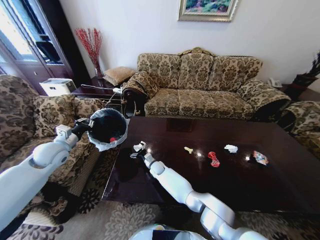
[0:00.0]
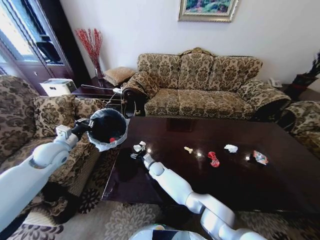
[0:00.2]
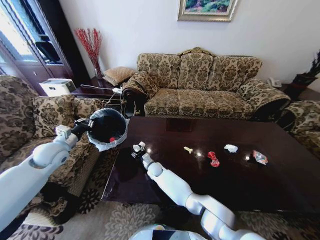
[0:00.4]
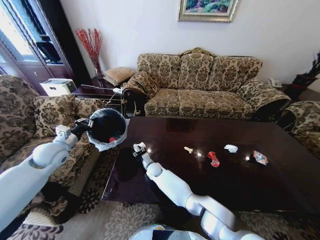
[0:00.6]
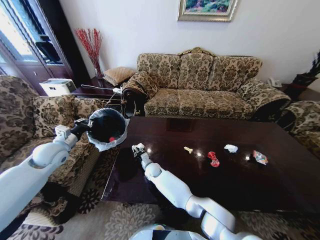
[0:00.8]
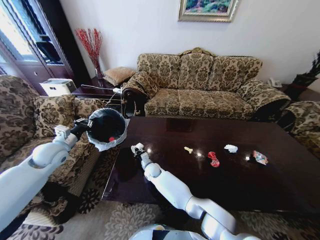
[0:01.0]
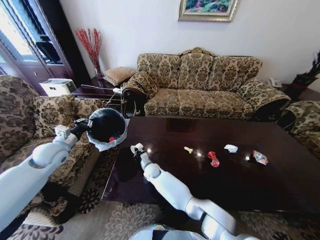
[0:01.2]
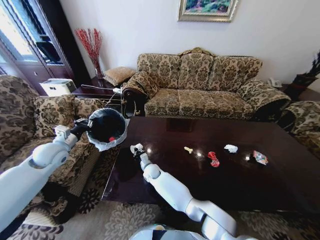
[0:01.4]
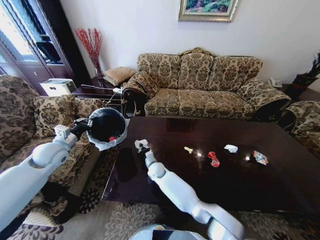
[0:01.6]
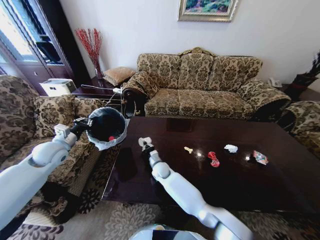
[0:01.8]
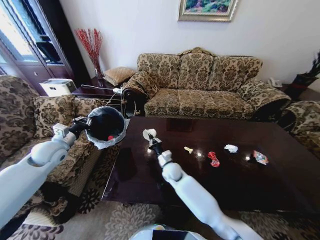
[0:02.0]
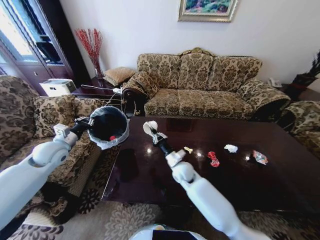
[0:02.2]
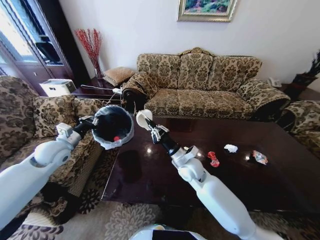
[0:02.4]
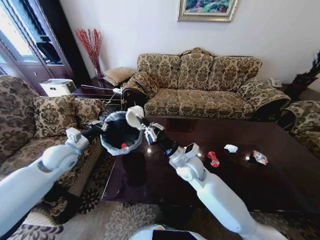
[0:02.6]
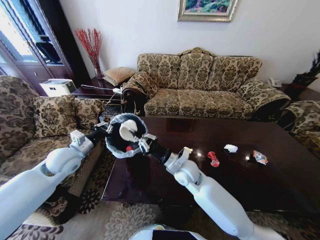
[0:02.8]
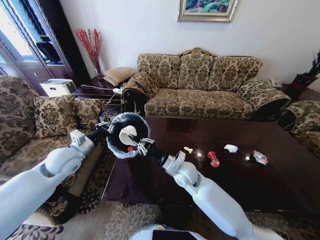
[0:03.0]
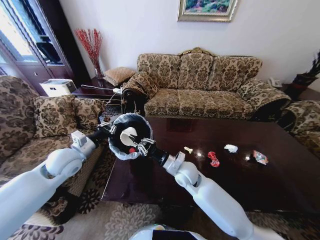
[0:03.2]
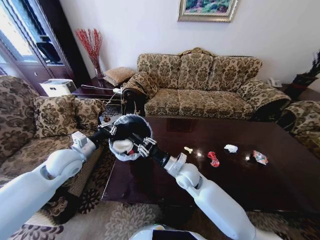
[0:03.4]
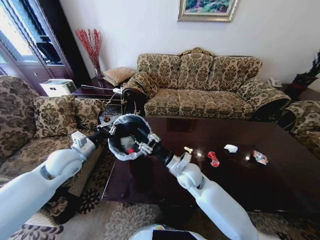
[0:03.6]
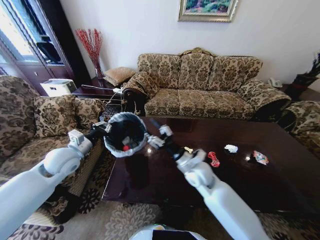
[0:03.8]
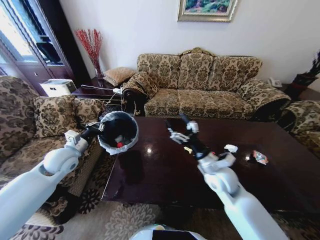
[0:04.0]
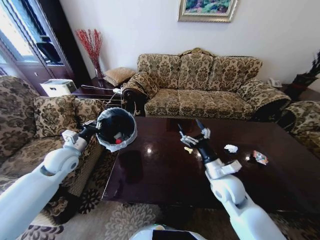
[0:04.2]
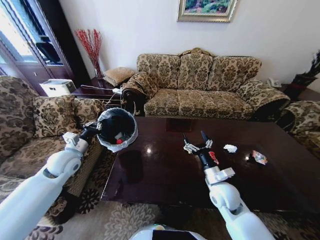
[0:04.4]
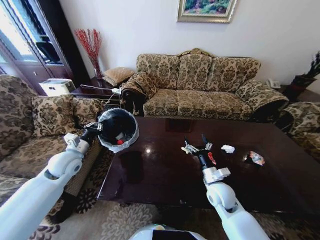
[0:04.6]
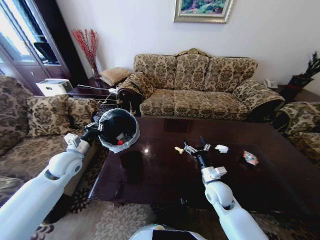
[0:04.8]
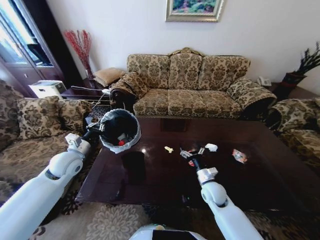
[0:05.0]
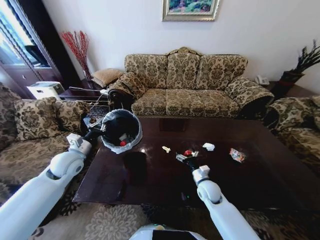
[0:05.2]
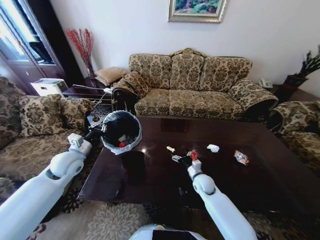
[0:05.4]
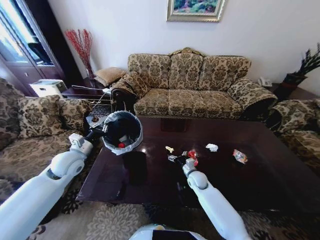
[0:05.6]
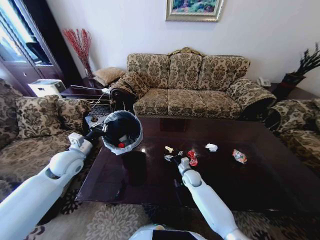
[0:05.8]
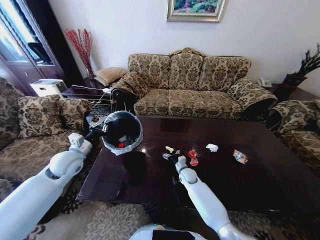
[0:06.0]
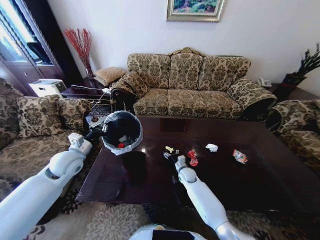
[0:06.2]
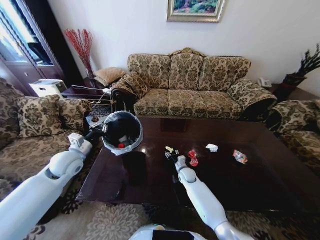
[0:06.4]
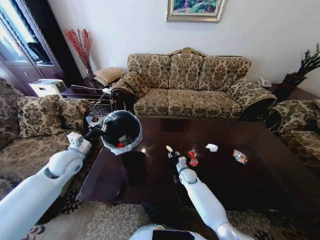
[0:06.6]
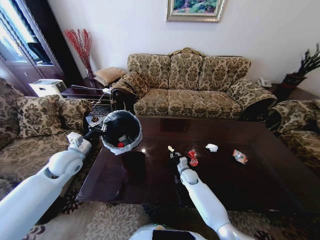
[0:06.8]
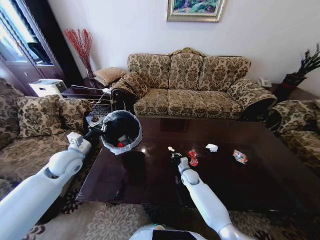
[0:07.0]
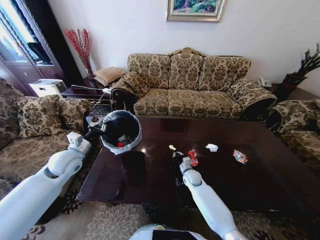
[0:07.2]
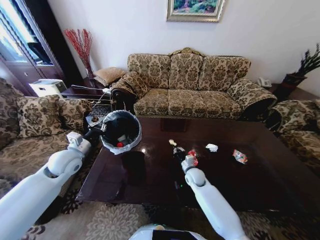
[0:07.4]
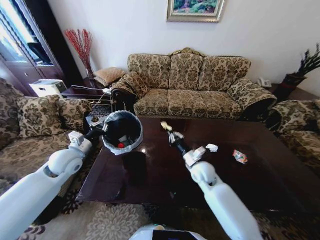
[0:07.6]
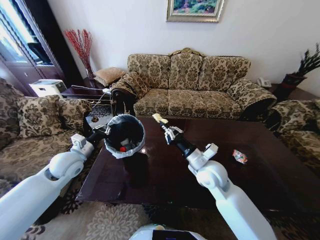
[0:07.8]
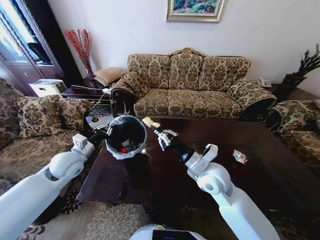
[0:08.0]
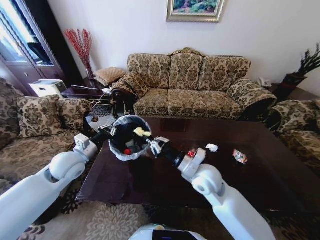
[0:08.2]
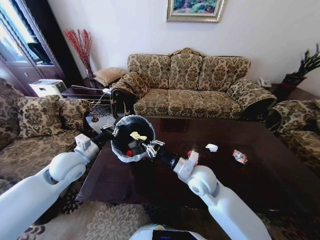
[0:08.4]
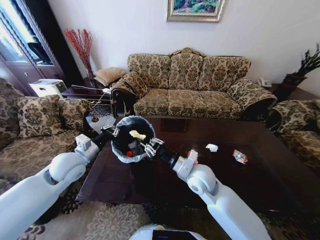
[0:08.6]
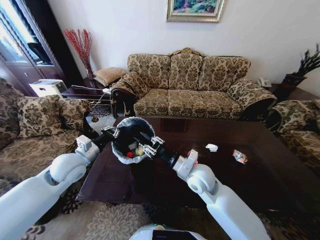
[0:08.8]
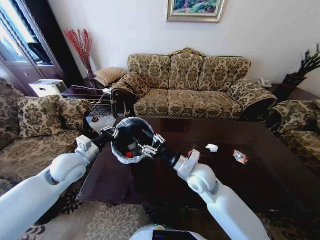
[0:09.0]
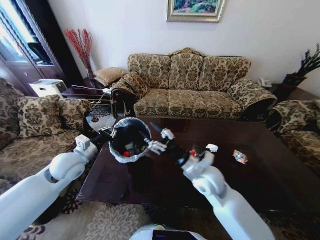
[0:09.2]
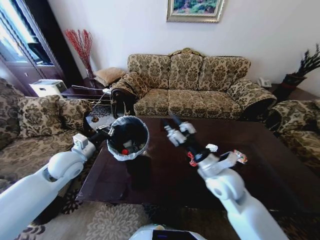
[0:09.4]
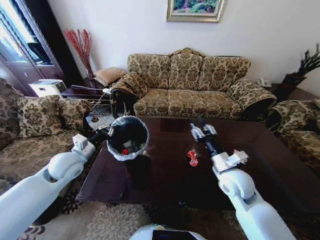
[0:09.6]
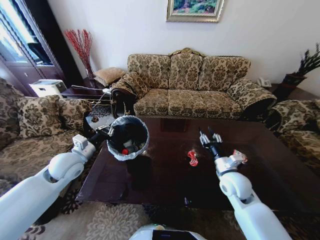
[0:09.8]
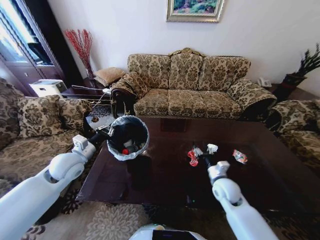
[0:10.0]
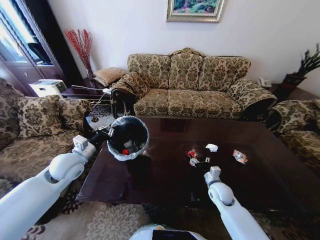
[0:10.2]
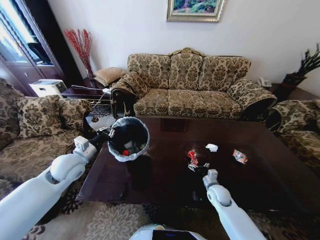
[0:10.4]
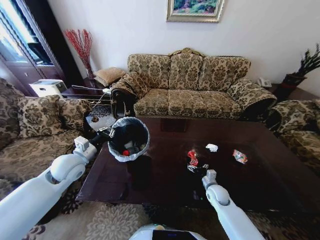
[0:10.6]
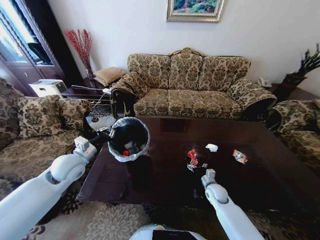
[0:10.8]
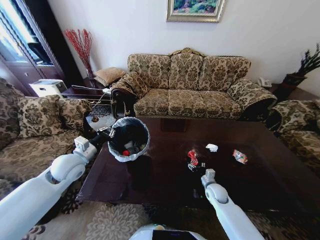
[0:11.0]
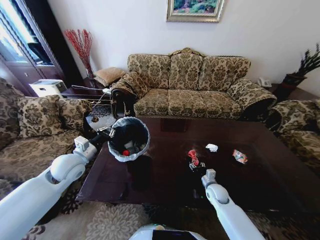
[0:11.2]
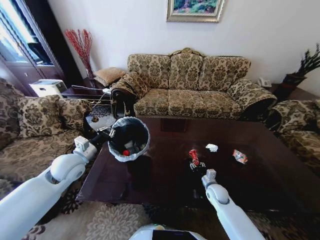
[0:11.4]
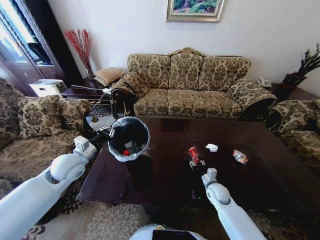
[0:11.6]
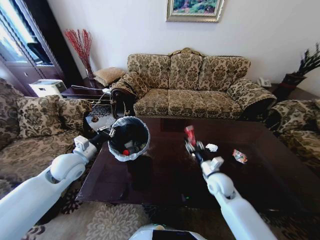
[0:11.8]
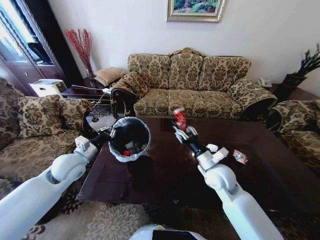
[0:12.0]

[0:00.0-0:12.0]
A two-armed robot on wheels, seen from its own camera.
Task of the whole recording: Move to the front of the table and place the trash on the table into the trash bin.
0:00.0 to 0:01.6: The right gripper shifts by some 5 cm, and closes its fingers.
0:01.6 to 0:03.0: The right gripper is displaced upward, to the right and backward by some 20 cm; the left gripper is displaced to the right by roughly 10 cm.
0:03.0 to 0:04.4: The right gripper heads to the right and backward, covering roughly 15 cm, and opens.
0:04.4 to 0:06.0: The right gripper heads downward, forward and to the left, covering some 25 cm.
0:06.0 to 0:07.6: The right gripper travels upward by roughly 15 cm, and closes its fingers.
0:07.6 to 0:09.0: The left gripper shifts by roughly 5 cm. The right gripper travels upward and backward by approximately 10 cm, and opens its fingers.
0:09.0 to 0:10.4: The right gripper shifts approximately 25 cm downward and to the right, and opens up.
0:10.4 to 0:12.0: The right gripper is displaced upward by roughly 20 cm, and closes.

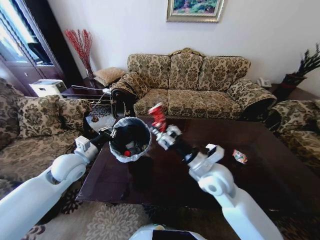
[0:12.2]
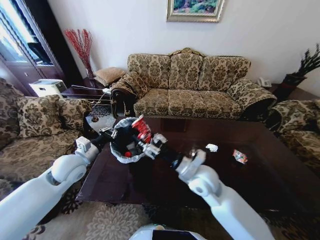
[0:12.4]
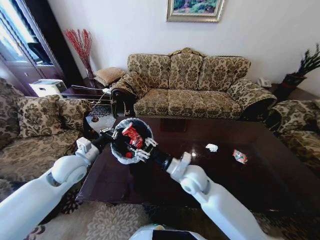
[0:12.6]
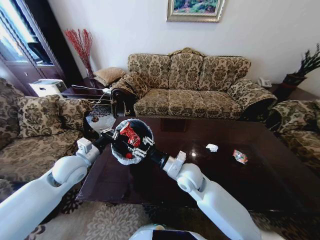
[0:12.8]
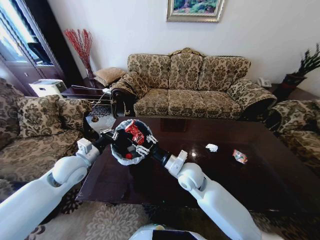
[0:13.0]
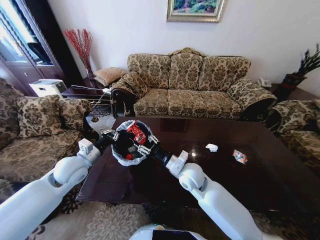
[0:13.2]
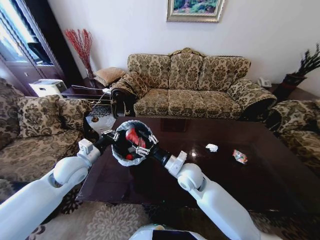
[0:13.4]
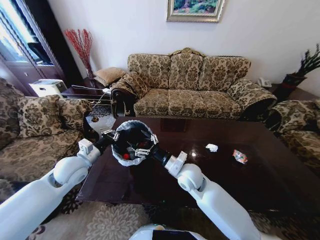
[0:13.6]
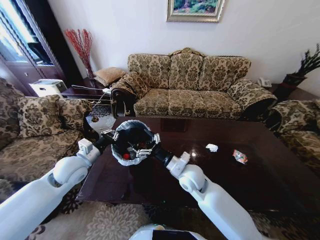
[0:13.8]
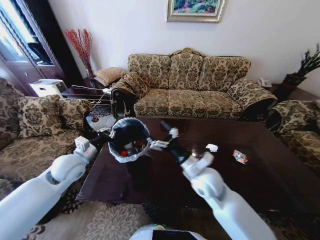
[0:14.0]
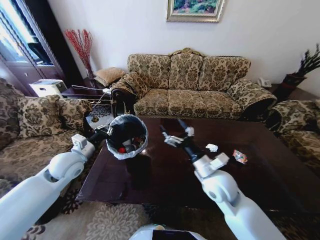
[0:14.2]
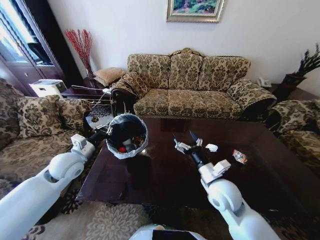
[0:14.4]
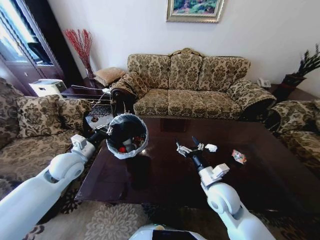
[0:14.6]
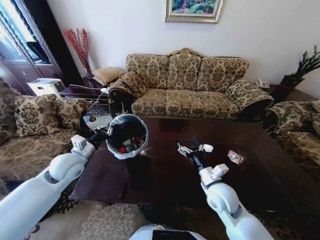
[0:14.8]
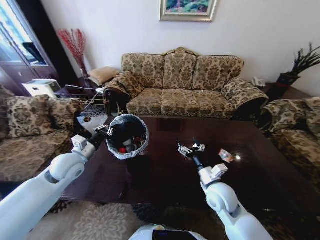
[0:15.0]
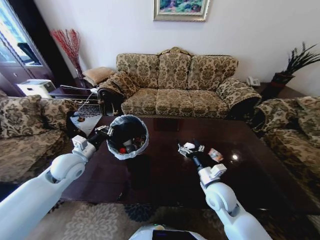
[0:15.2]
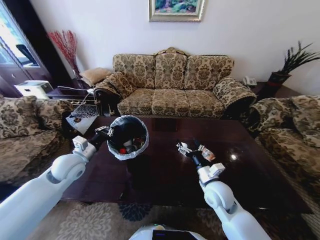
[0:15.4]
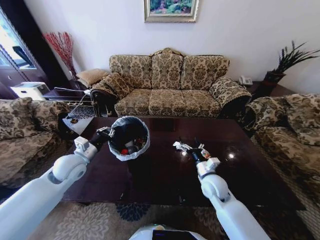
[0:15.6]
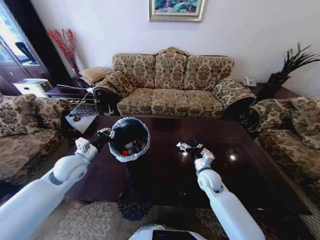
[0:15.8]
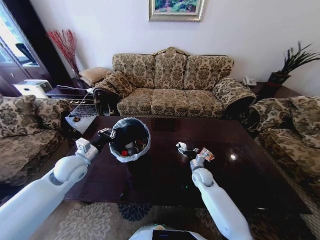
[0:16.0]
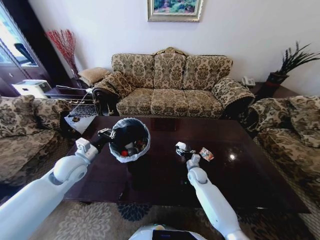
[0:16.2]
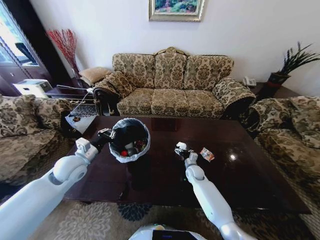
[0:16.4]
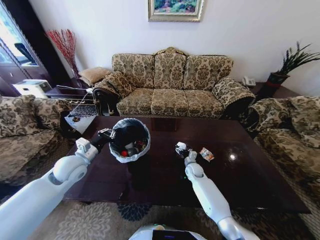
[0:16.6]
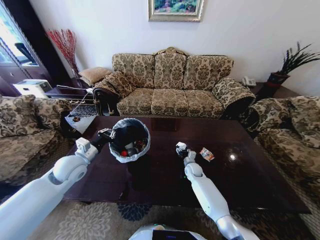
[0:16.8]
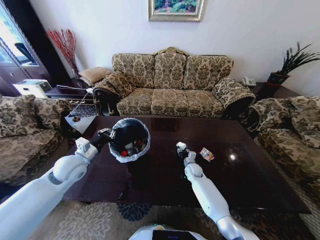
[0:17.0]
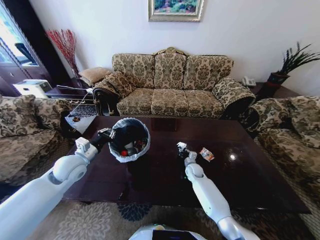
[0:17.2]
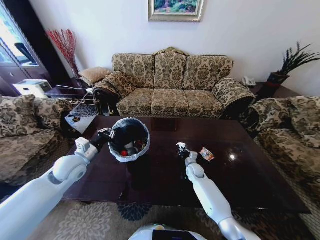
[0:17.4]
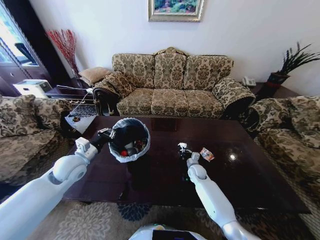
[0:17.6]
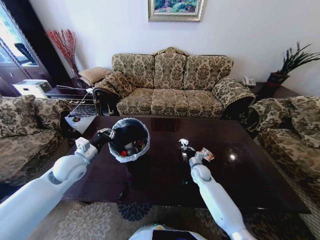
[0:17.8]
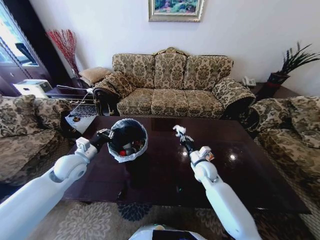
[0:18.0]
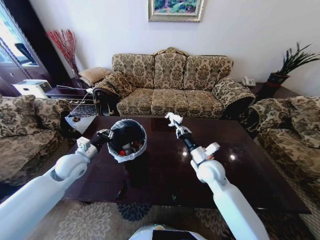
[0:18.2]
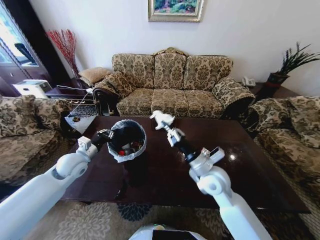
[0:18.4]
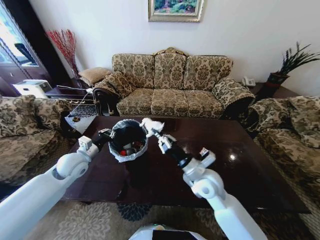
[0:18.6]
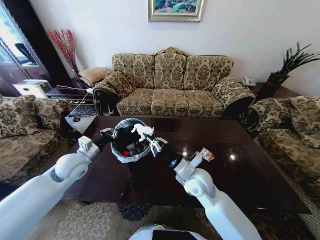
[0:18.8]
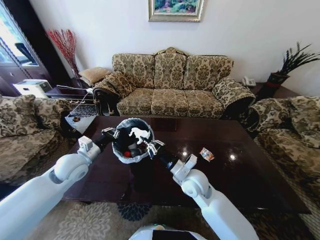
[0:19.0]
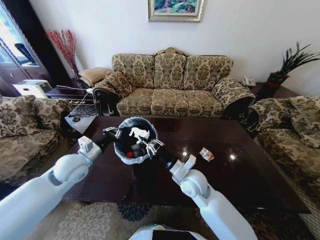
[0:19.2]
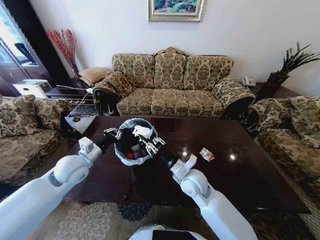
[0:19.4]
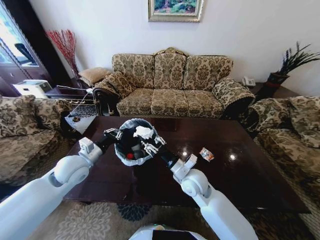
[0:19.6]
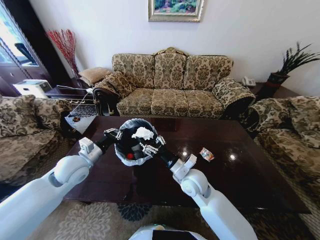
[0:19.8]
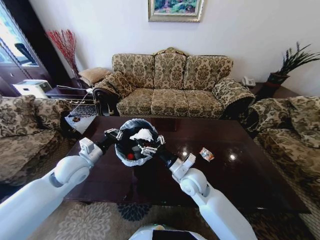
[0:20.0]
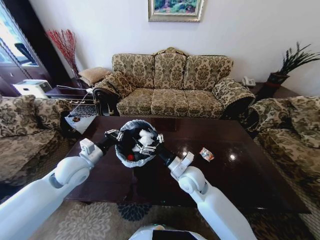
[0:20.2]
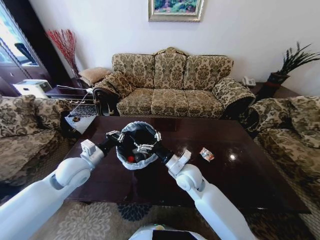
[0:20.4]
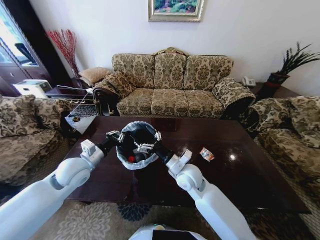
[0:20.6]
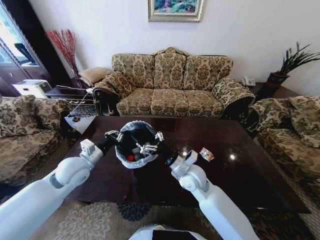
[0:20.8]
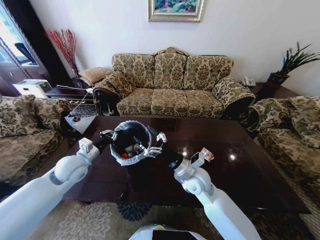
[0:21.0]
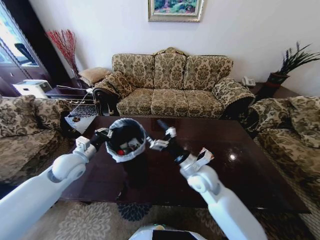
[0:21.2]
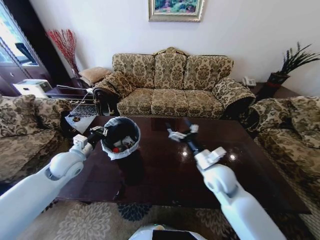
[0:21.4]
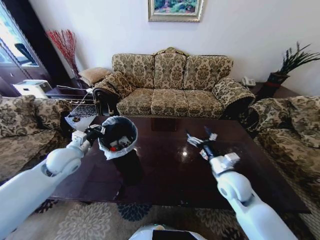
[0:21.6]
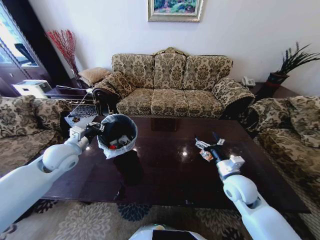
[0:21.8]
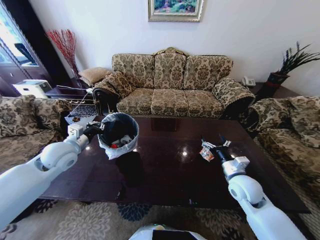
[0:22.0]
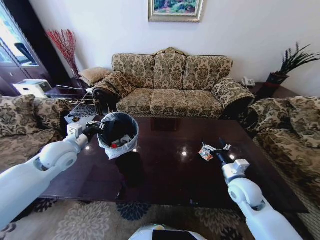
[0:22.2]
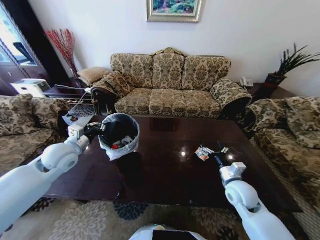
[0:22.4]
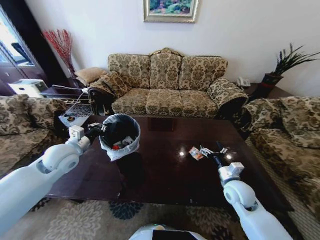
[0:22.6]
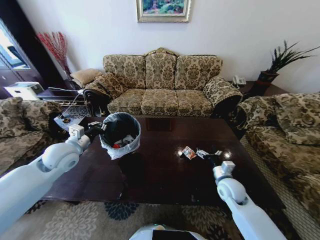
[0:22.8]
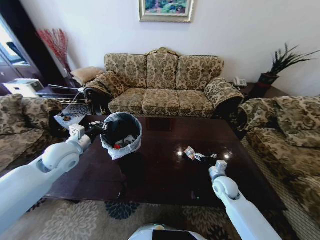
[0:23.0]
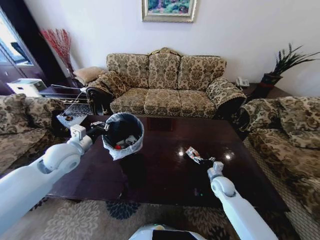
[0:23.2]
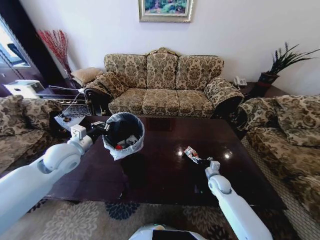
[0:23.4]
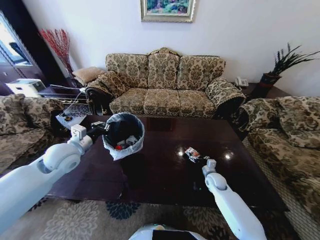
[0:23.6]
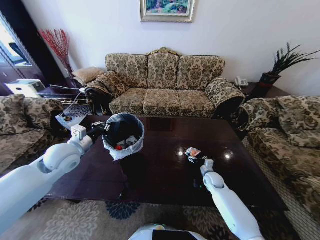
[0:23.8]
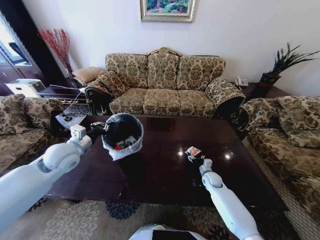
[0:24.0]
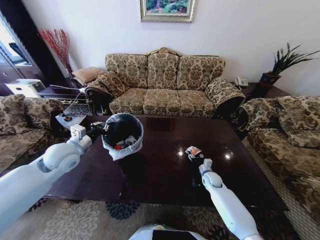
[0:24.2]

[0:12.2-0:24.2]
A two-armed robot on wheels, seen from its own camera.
Task of the whole recording: Move to the front of the table and place the trash on the table into the trash bin.
0:12.2 to 0:13.8: The right gripper heads to the left and downward, covering about 10 cm, and opens.
0:13.8 to 0:15.2: The right gripper is displaced to the right and backward by roughly 10 cm.
0:15.2 to 0:16.6: The right gripper is displaced forward and downward by approximately 25 cm.
0:16.6 to 0:18.2: The right gripper shifts some 25 cm upward and backward, and closes up.
0:18.2 to 0:19.8: The left gripper moves about 5 cm; the right gripper moves to the left, approximately 10 cm, and opens up.
0:19.8 to 0:21.2: There are only small adjustments of the grippers.
0:21.2 to 0:22.6: The right gripper moves to the right and downward, about 15 cm.
0:22.6 to 0:24.2: The right gripper travels downward and forward by roughly 20 cm.
